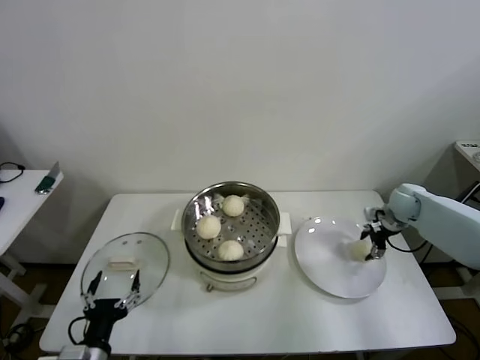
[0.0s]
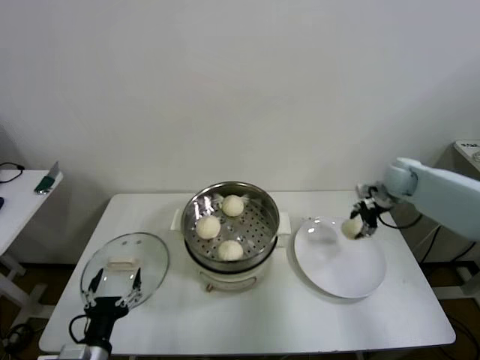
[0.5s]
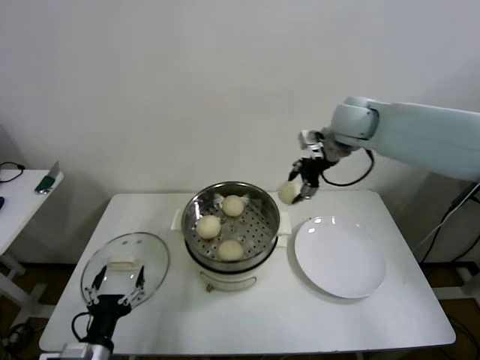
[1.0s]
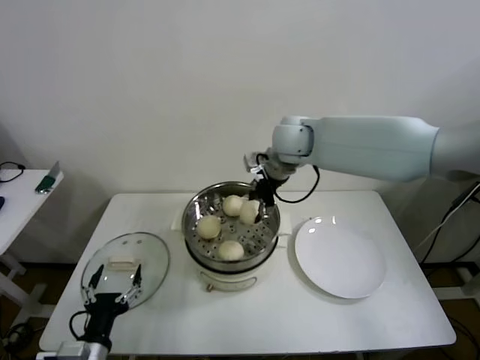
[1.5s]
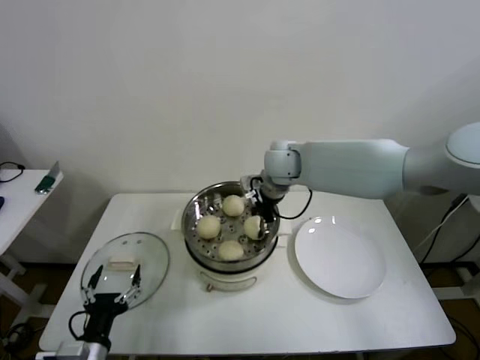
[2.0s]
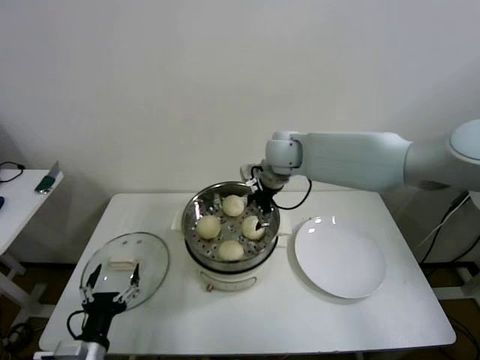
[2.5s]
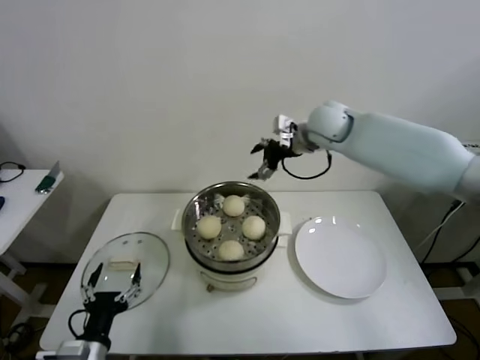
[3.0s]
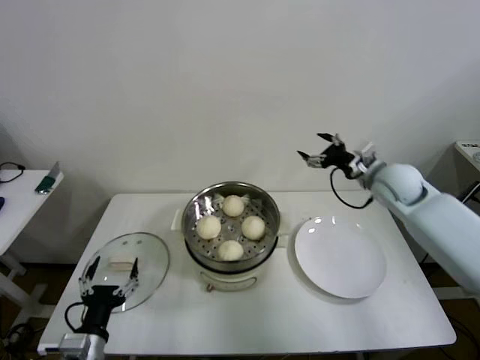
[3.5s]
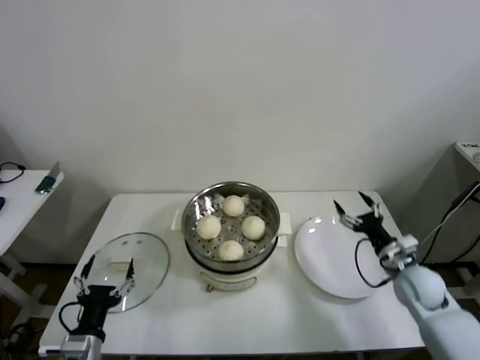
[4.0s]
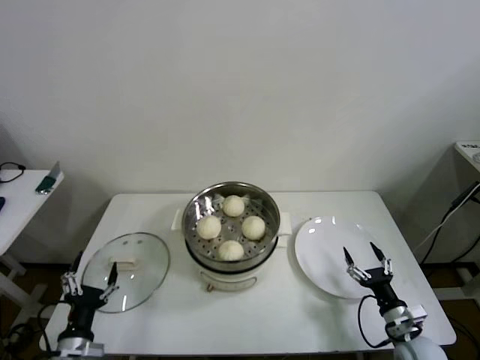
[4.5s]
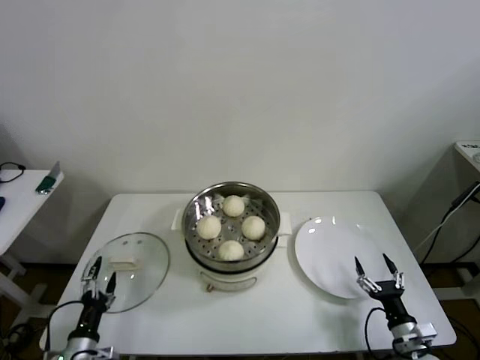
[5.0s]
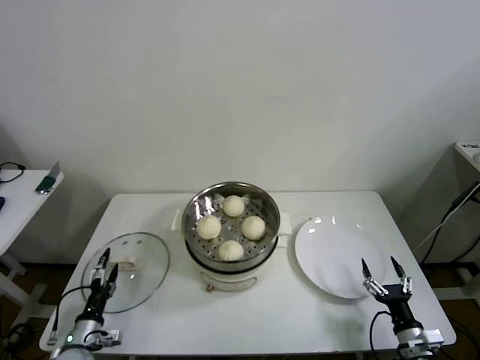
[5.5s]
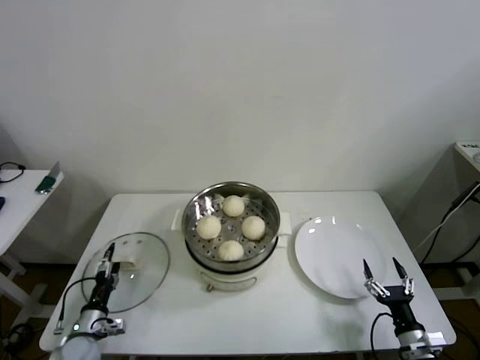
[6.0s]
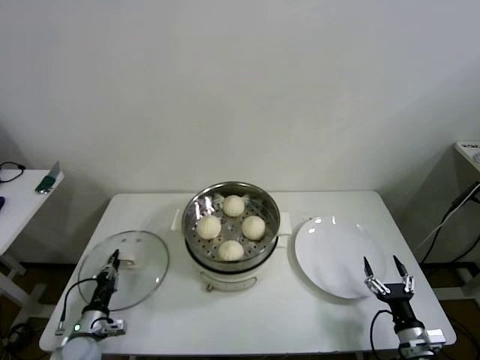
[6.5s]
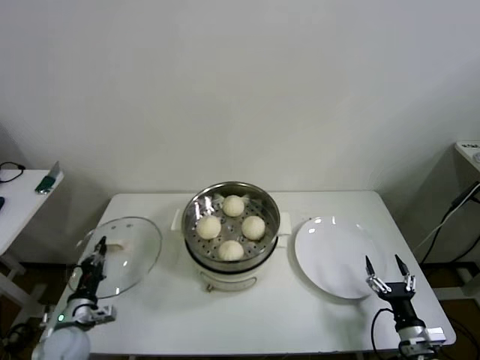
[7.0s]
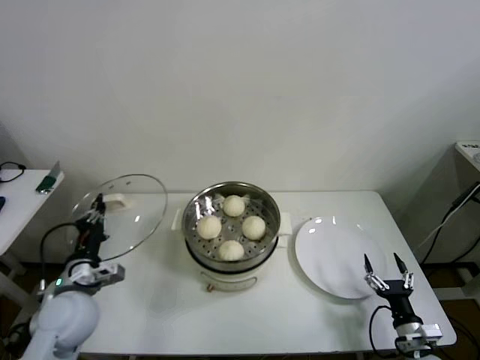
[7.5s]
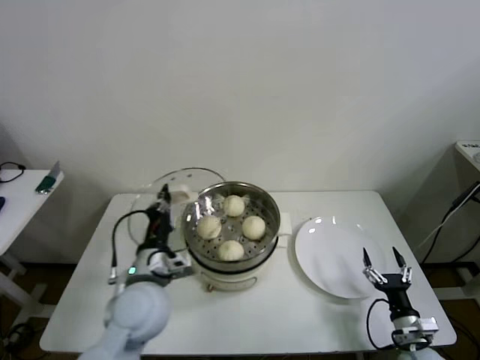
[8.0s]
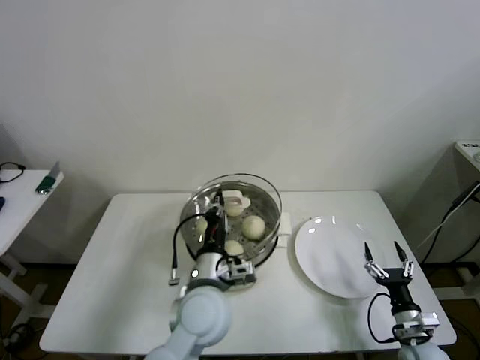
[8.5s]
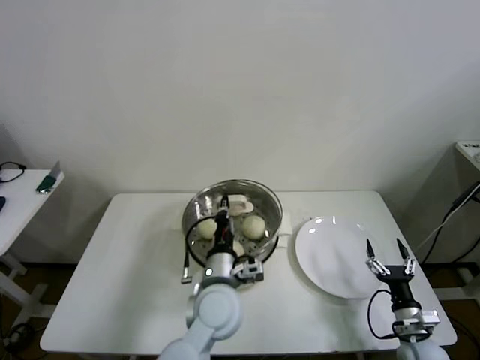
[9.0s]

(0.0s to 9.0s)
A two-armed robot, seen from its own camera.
Step, 0.5s - 2.0s: Place the baozi on the steamer with right gripper.
Step, 2.5s - 6.5s: Grasp the pot lid with left gripper.
0.0s - 2.0s: The right gripper moves to the left and upward, approximately 40 cm.
2.0s - 4.5s: The right gripper shifts about 50 cm downward, backward and to the right, and opens. The left gripper moves approximately 5 cm.
4.5s - 7.0s: The left gripper heads forward, downward and to the left, covering roughly 15 cm, and closes its fingers.
7.0s - 9.0s: The left gripper moves to the right and upward, roughly 40 cm.

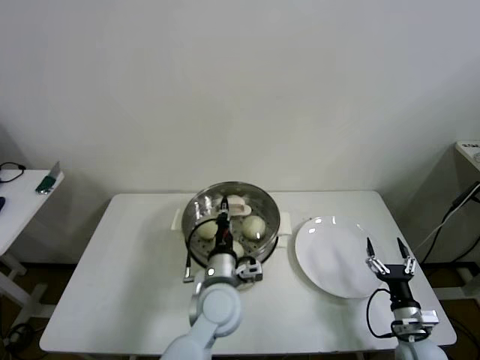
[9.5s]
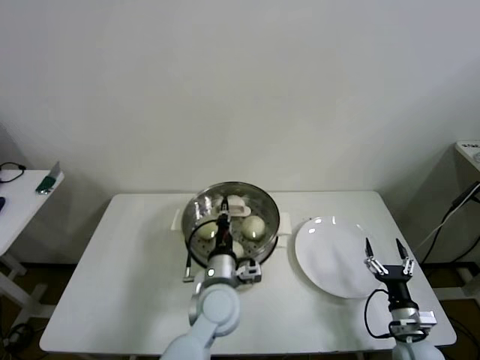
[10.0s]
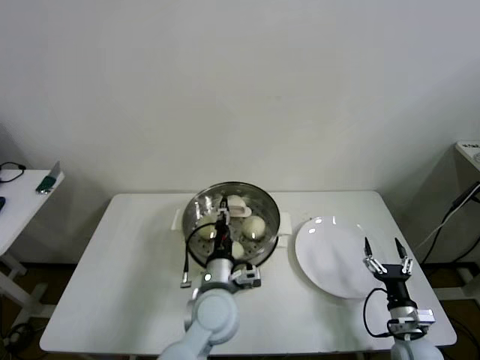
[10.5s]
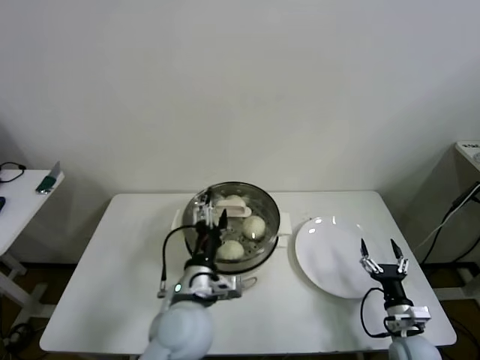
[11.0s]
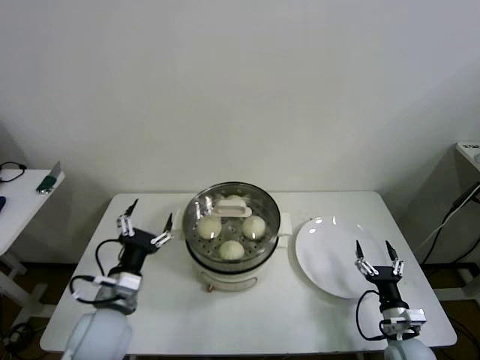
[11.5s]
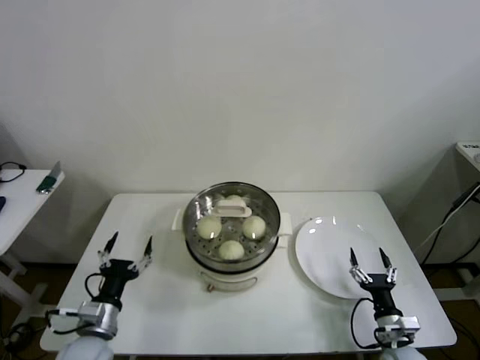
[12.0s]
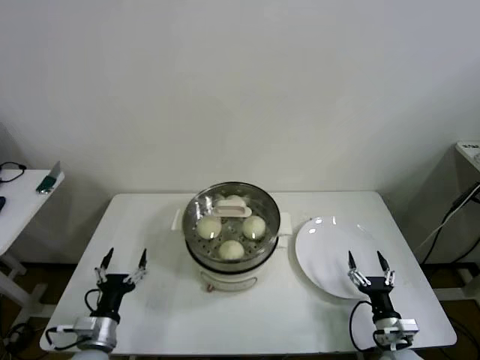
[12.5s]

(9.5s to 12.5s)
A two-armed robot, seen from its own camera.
9.5s - 11.0s: The left gripper shifts by roughly 5 cm, and opens up.
11.0s - 12.5s: The left gripper shifts some 25 cm to the left and downward.
